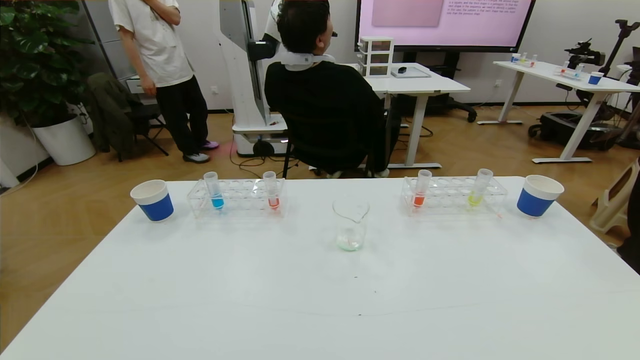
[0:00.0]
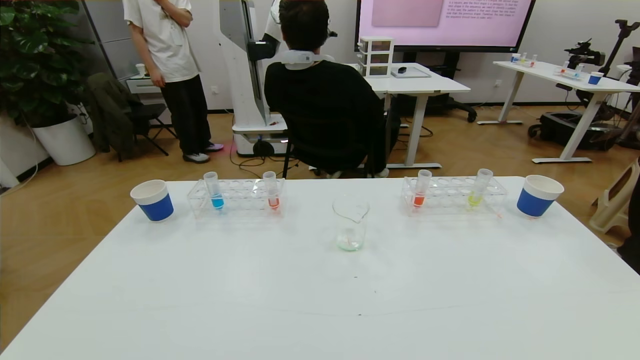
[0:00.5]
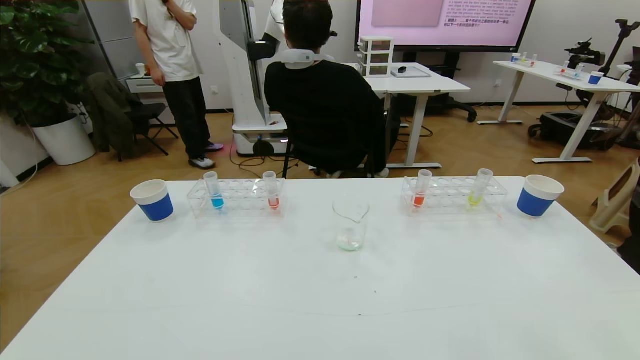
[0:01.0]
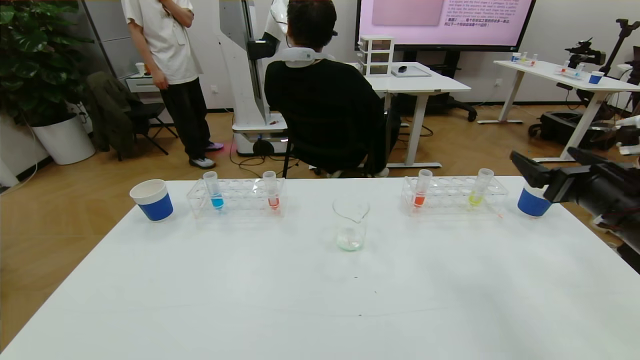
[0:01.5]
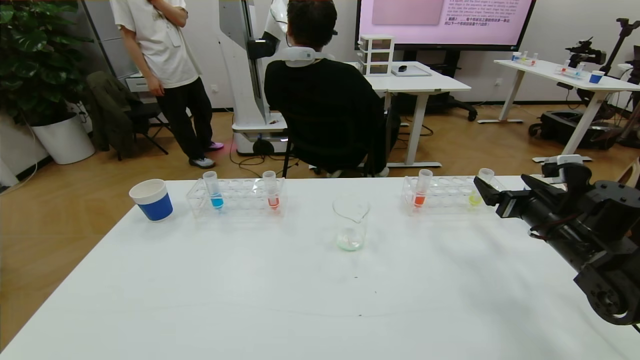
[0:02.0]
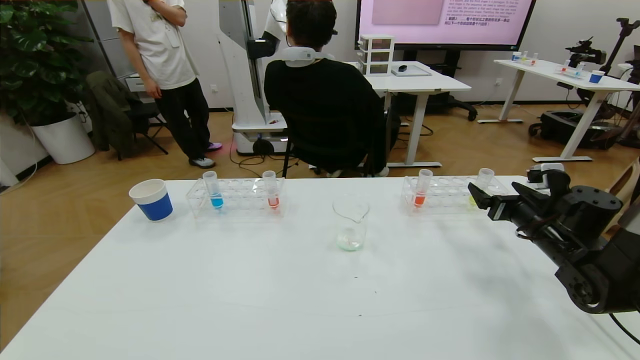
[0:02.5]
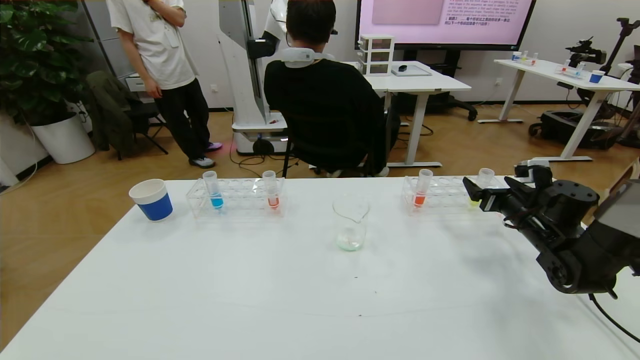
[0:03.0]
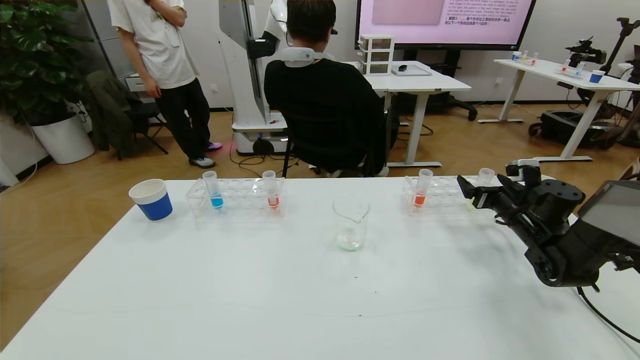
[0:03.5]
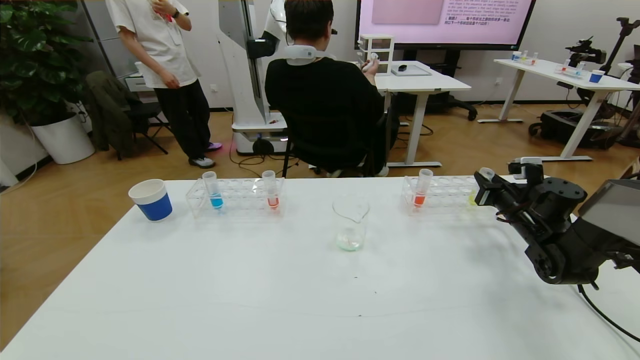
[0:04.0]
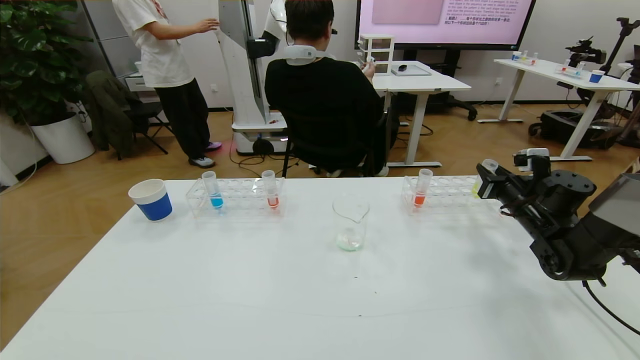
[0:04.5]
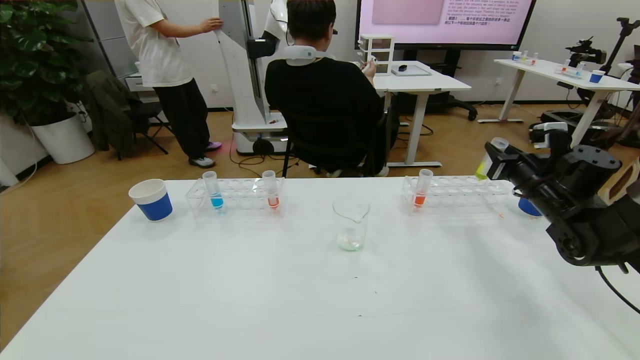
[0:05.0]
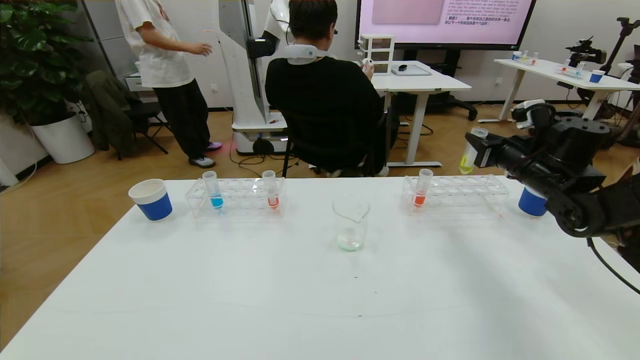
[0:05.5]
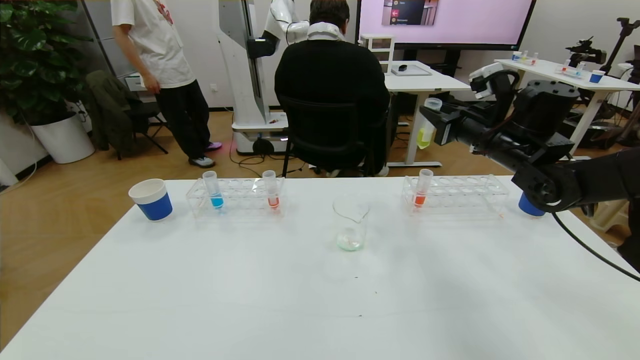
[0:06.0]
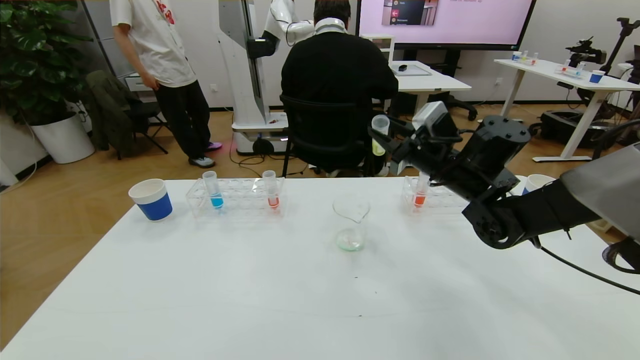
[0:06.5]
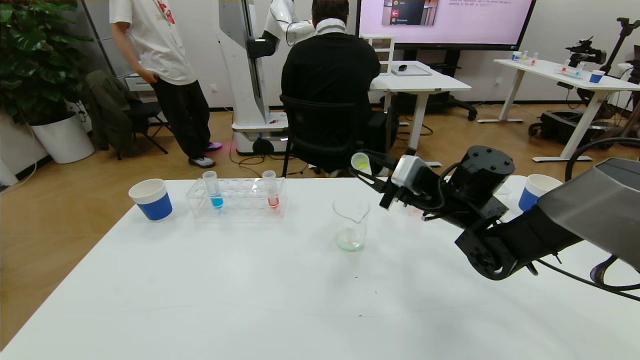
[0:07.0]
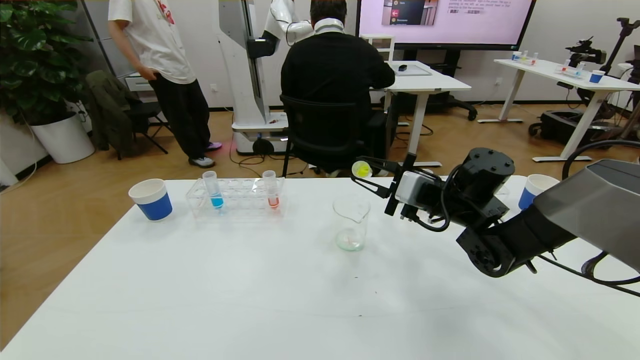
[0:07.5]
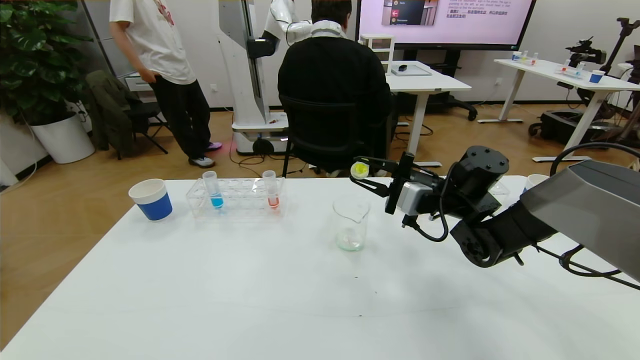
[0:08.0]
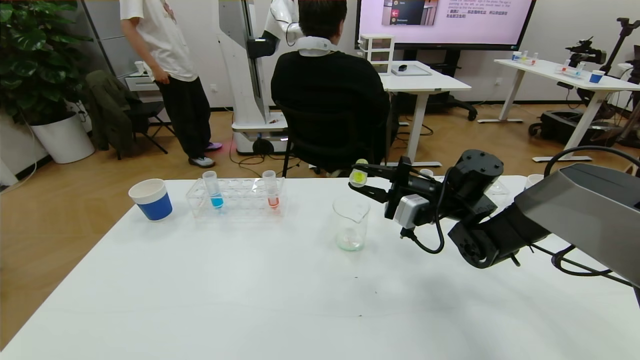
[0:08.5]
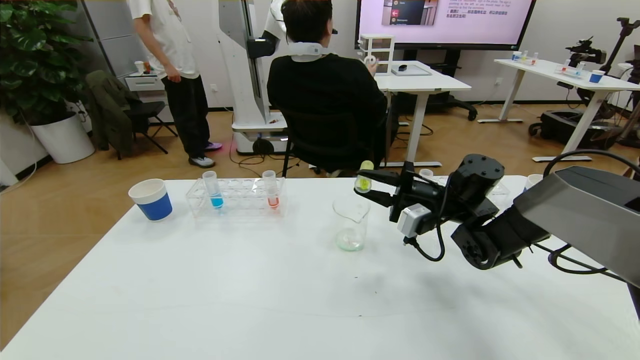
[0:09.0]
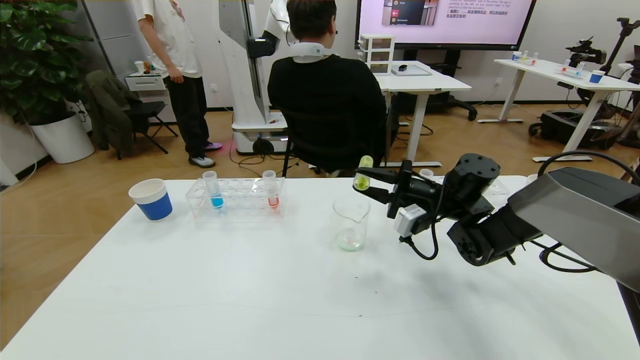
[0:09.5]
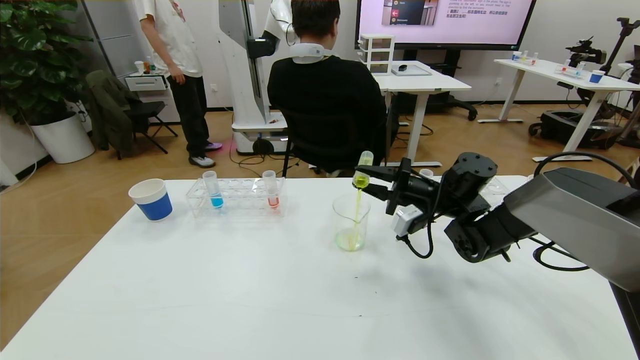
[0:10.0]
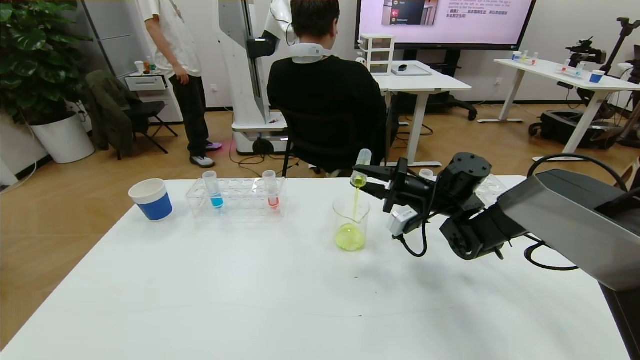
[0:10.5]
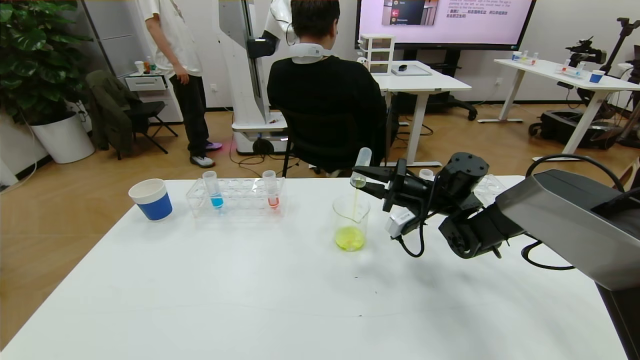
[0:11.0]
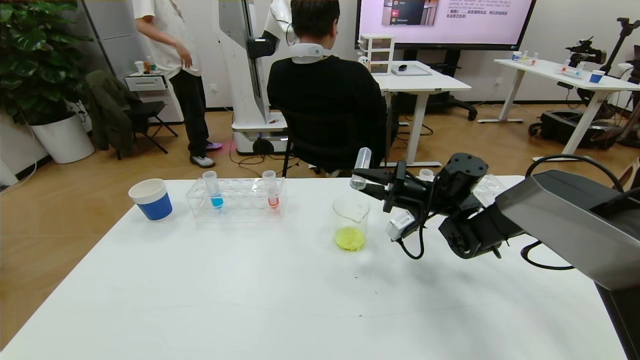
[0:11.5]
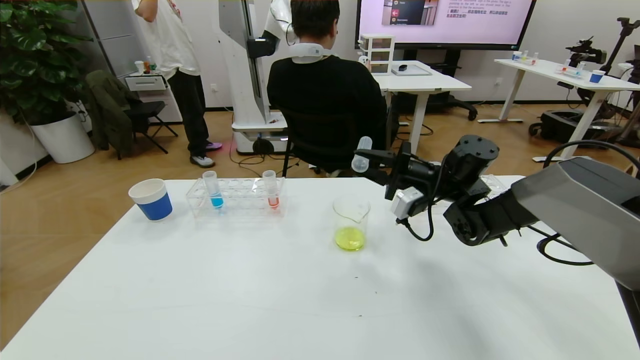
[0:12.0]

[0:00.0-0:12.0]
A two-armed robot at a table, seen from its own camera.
Task of the whole recording: pick up the test tube with yellow pigment and the test tube with blue pigment by grippers and pour them into the beaker.
0:00.0 to 0:02.0: The right gripper shifts some 35 cm forward.
0:02.0 to 0:04.0: The right gripper is displaced forward by some 10 cm, and closes up.
0:04.0 to 0:06.0: The right gripper travels upward and to the left by roughly 20 cm.
0:06.0 to 0:08.0: The right gripper is displaced downward and to the left by roughly 10 cm.
0:10.0 to 0:12.0: The grippers make only small movements.

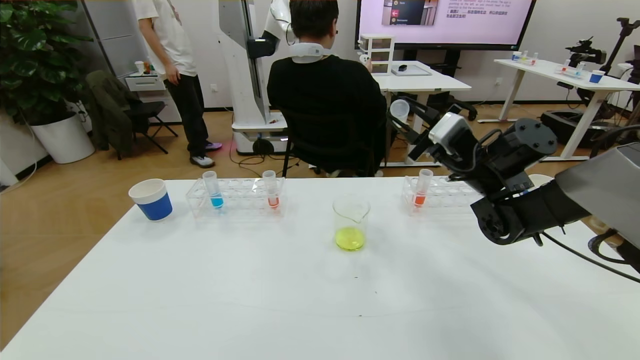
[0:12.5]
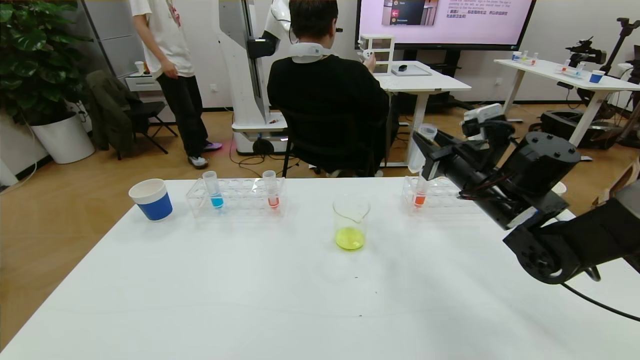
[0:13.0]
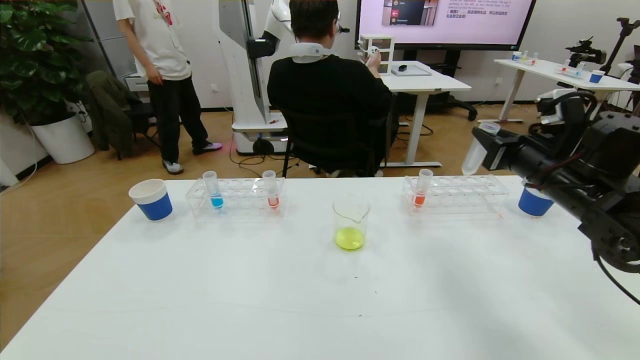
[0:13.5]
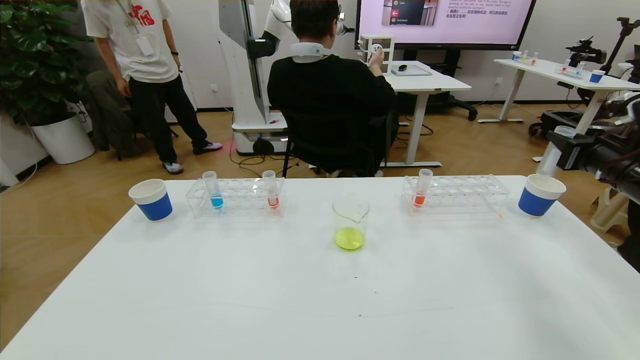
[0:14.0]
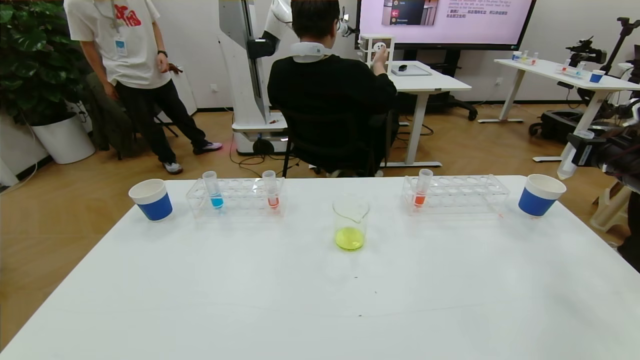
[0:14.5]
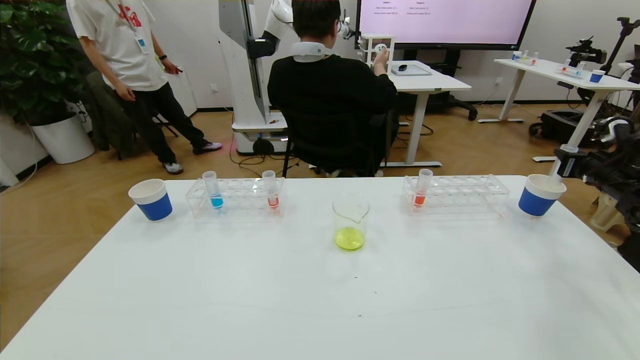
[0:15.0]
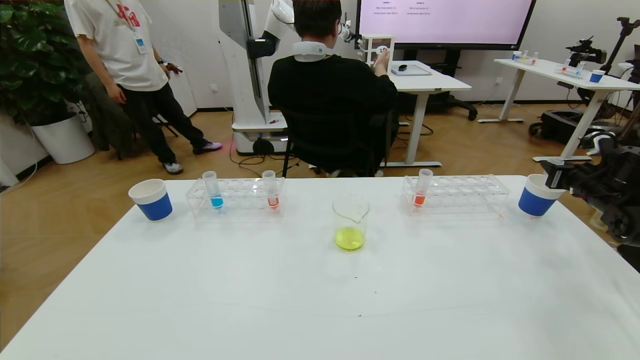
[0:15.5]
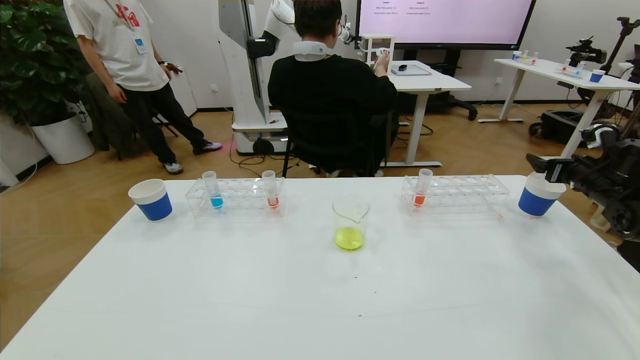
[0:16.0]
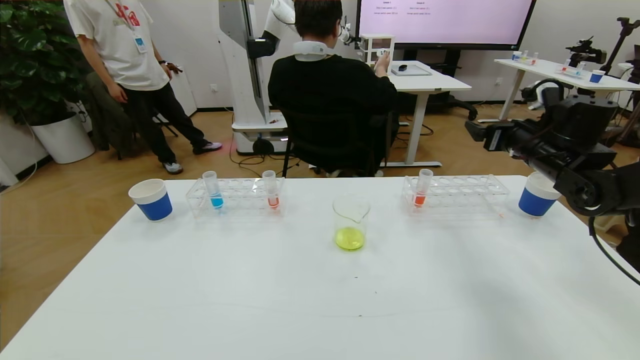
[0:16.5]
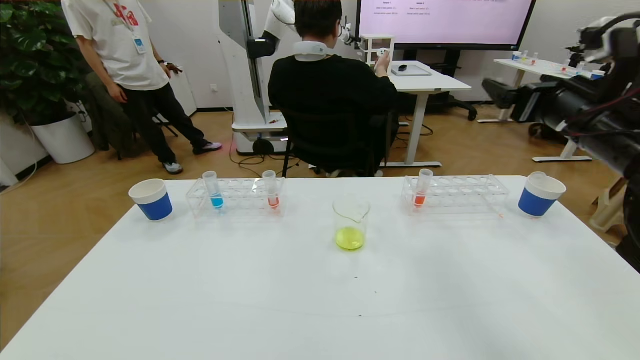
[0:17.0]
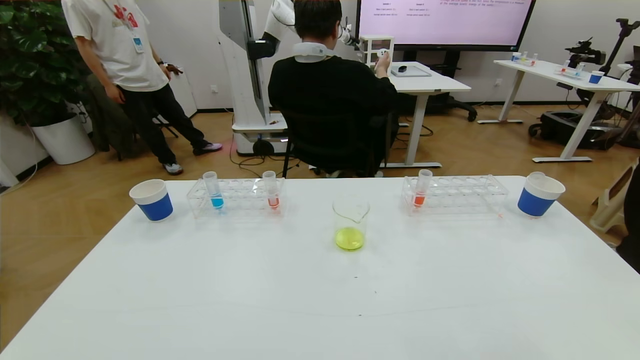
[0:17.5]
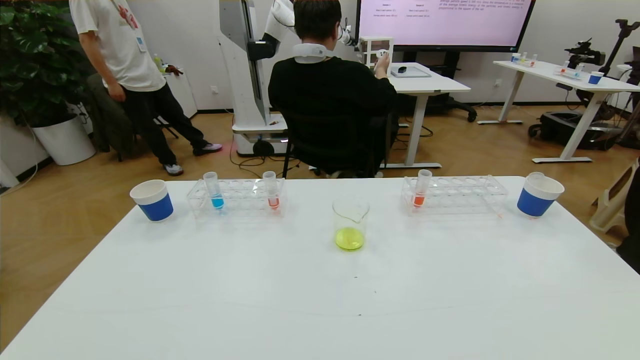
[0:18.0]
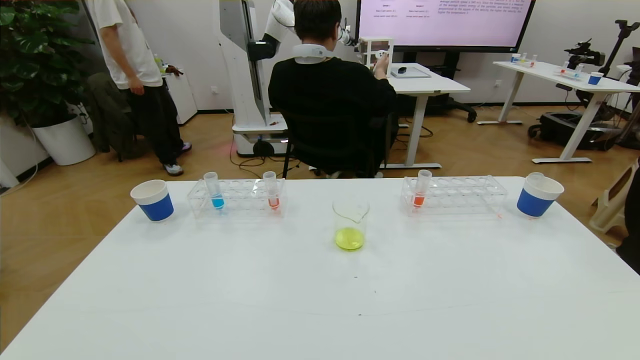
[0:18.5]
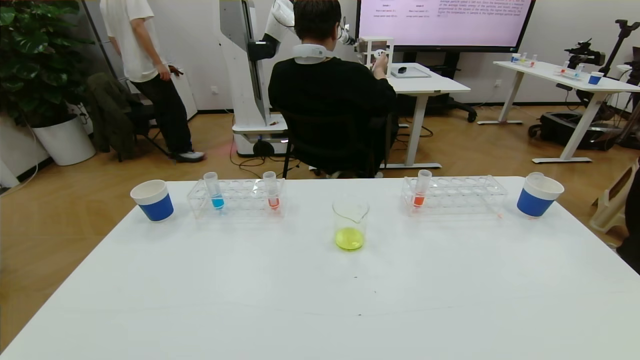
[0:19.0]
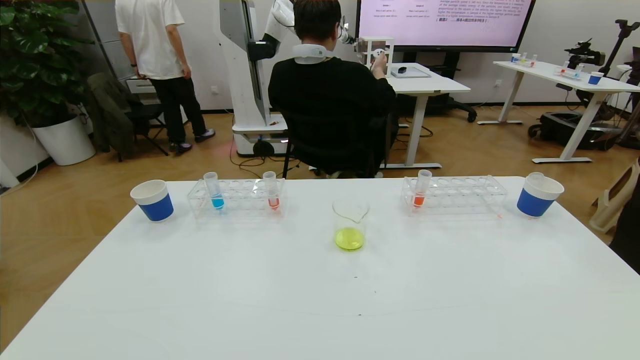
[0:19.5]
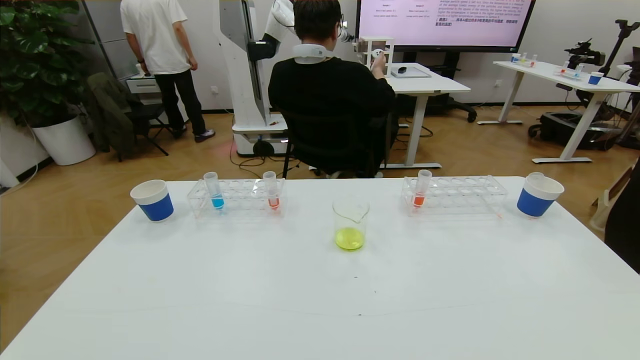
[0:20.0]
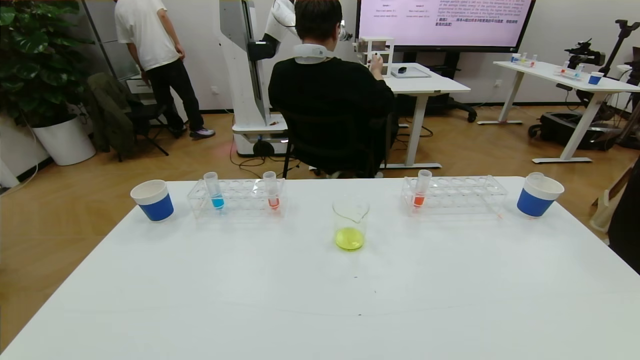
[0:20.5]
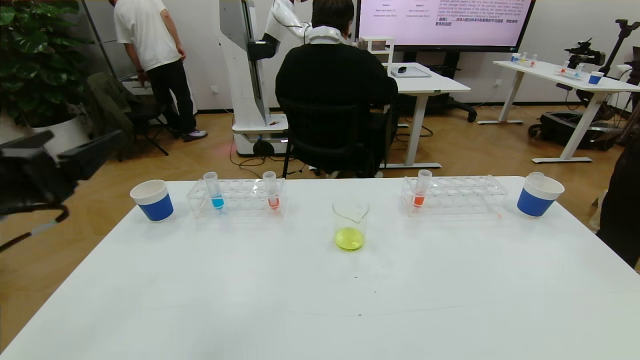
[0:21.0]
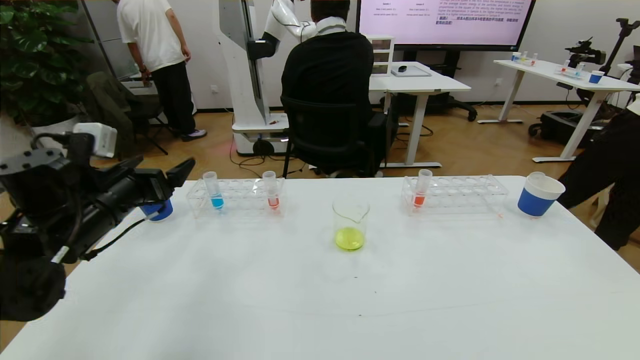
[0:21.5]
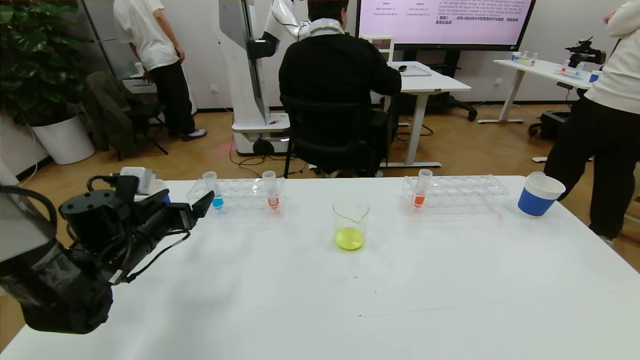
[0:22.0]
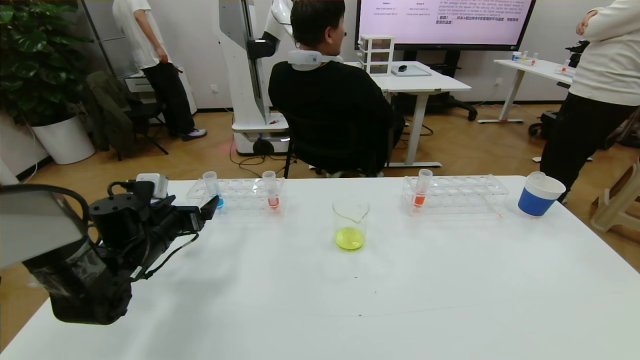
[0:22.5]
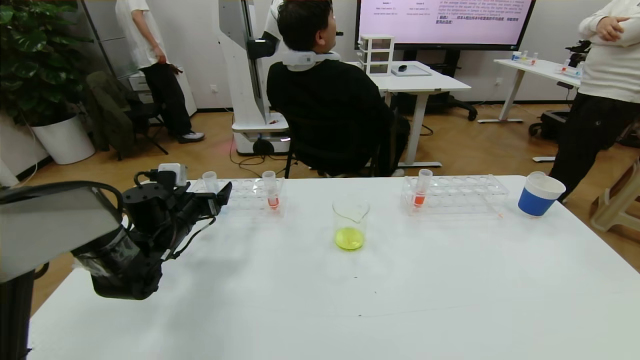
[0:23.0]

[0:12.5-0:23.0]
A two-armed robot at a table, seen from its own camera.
Task of the whole recording: pick up the test tube with yellow pigment and the test tube with blue pigment by grippers and pour them into the beaker.
Step, 0:12.5 to 0:19.5: Pour the yellow reagent into the graduated cylinder and place the test tube into the paper cup.
0:12.5 to 0:14.5: The right gripper shifts roughly 30 cm to the right.
0:14.5 to 0:16.5: The right gripper goes some 15 cm to the left, and opens.
0:16.5 to 0:19.0: The right gripper travels backward by about 40 cm.
0:19.0 to 0:21.0: The left gripper heads forward and upward, covering approximately 25 cm.
0:21.0 to 0:23.0: The left gripper travels forward and downward by about 30 cm.
